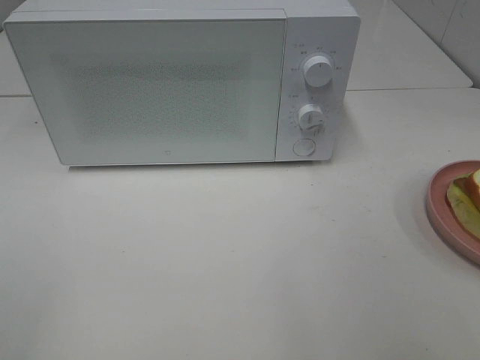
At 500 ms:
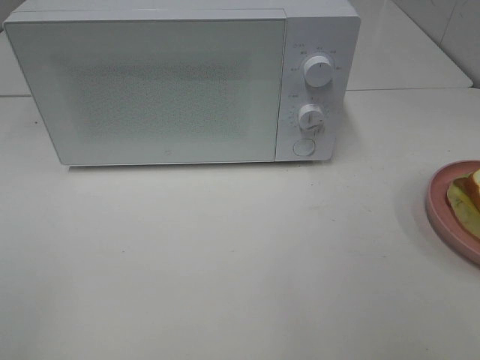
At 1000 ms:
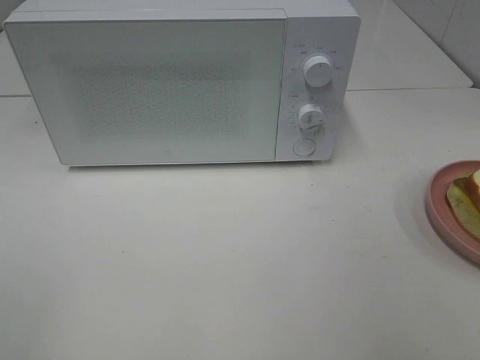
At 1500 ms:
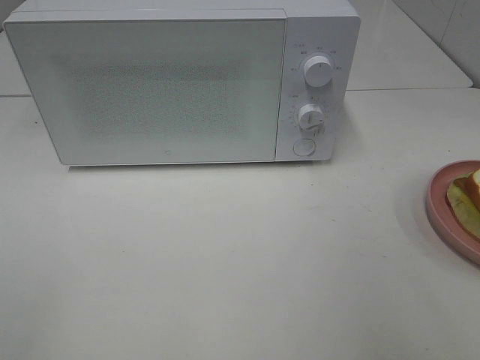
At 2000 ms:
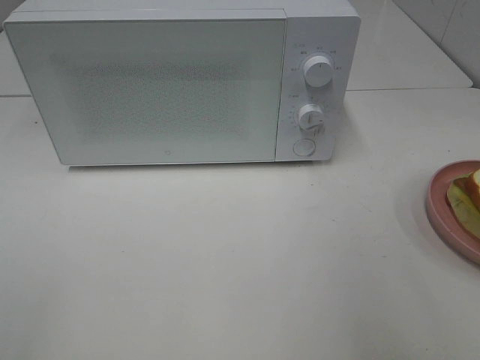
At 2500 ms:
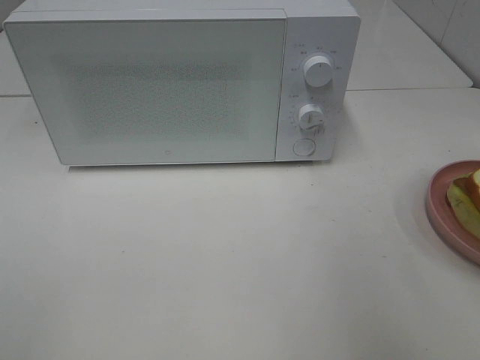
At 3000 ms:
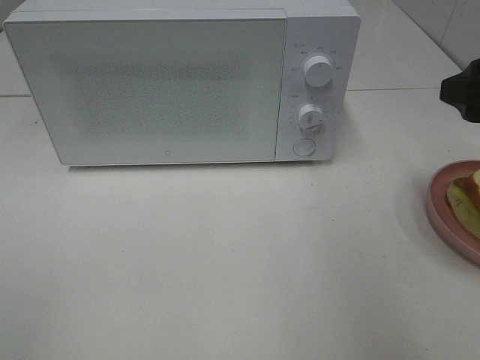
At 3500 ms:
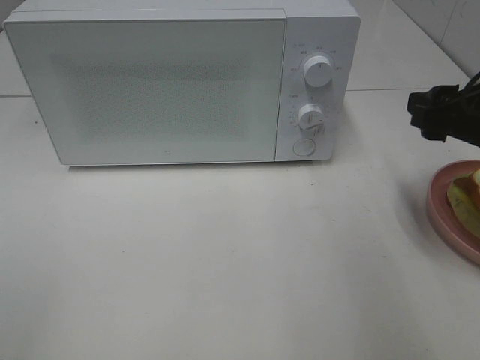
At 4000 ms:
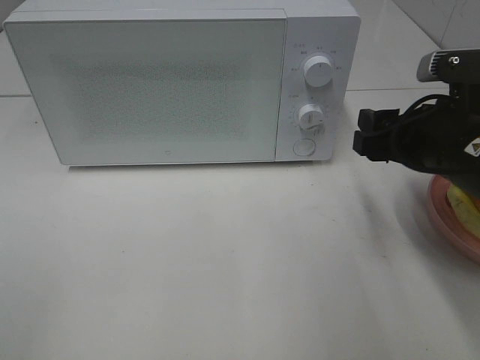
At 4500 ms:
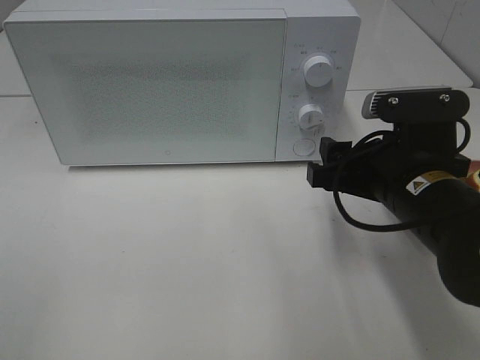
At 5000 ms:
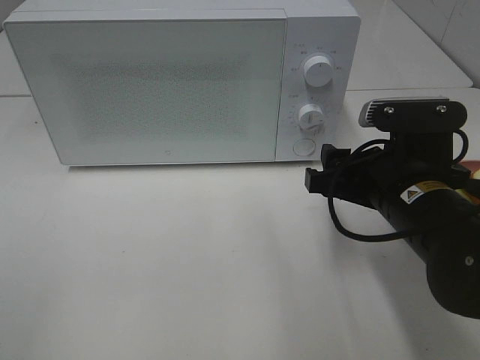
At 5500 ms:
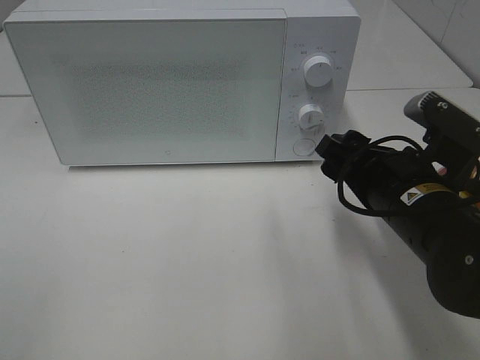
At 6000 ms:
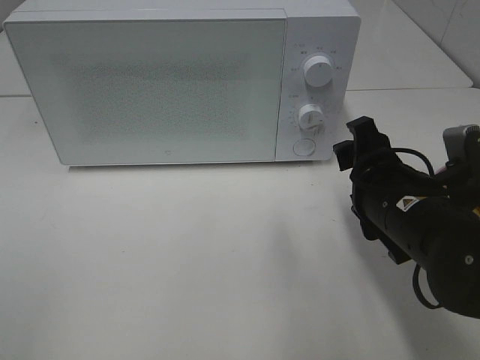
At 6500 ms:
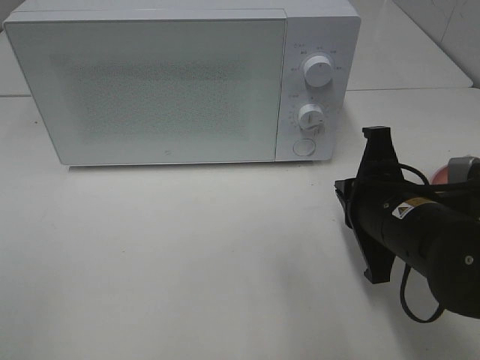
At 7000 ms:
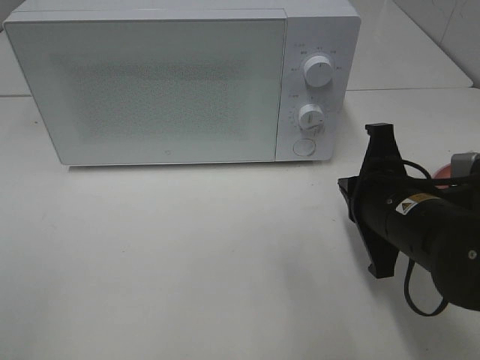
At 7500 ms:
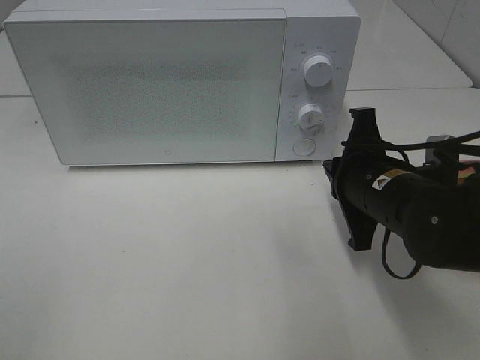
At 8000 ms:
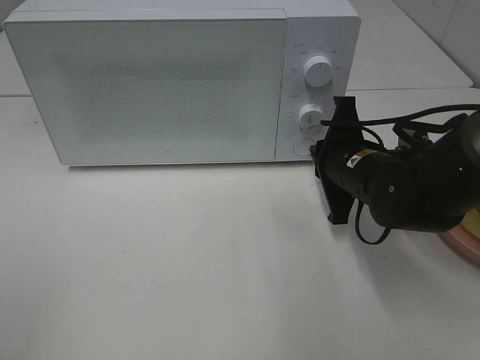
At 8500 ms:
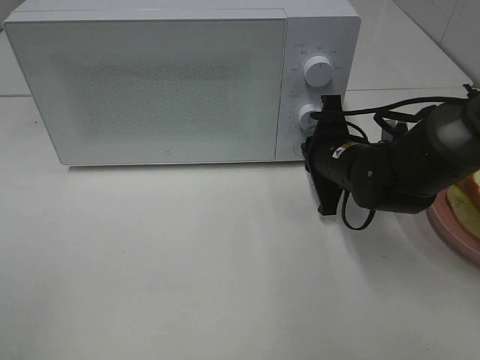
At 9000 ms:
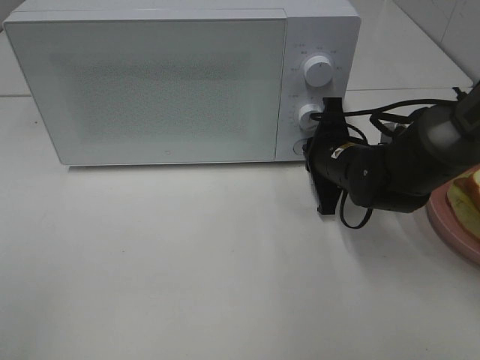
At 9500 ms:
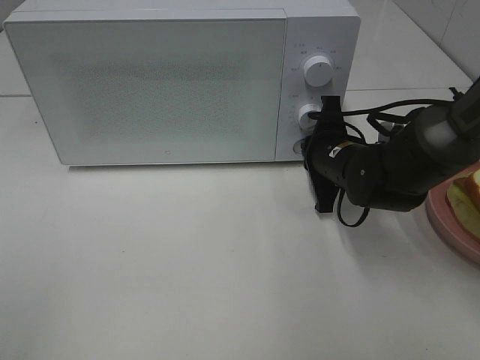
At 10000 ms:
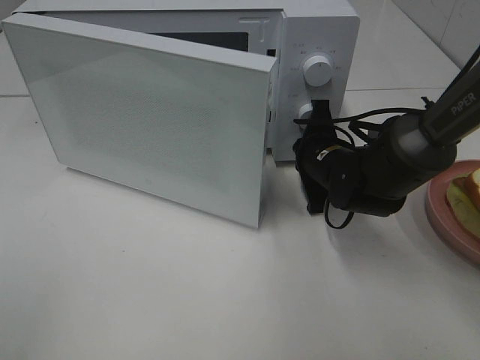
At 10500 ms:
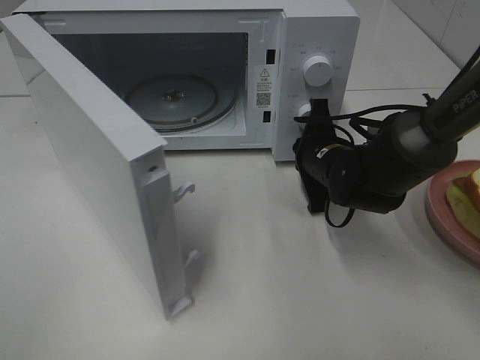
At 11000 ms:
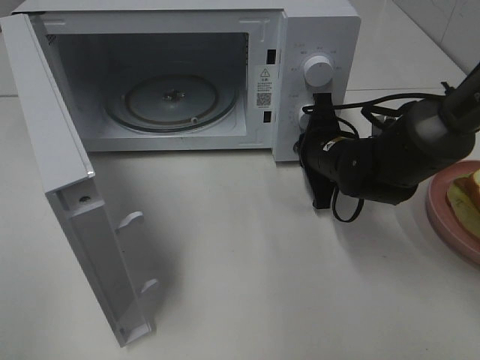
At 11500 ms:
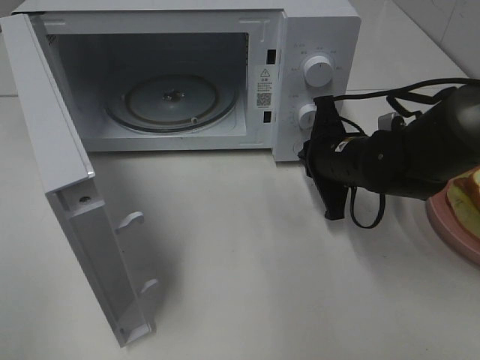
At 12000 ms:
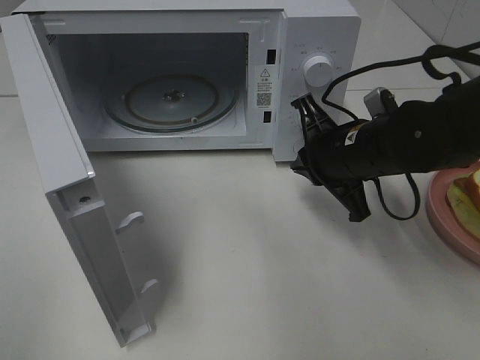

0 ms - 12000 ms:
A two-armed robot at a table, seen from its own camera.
Task of the whole recording: Heat Sandwich.
Step, 0 ms - 11500 ms: Right hand: press the switch.
2000 ms - 4000 ms: The right gripper heads downward, forward and to the left, covering some 20 cm.
4000 ms - 6000 ms: The right gripper moves some 5 cm.
6000 ms - 8000 ms: The right gripper heads forward, covering approximately 10 cm, and closes its fingers.
8000 ms - 10000 ms: The right gripper heads forward, covering roughly 5 cm.
10000 ms - 12000 ms: The right gripper moves upward and backward, some 10 cm.

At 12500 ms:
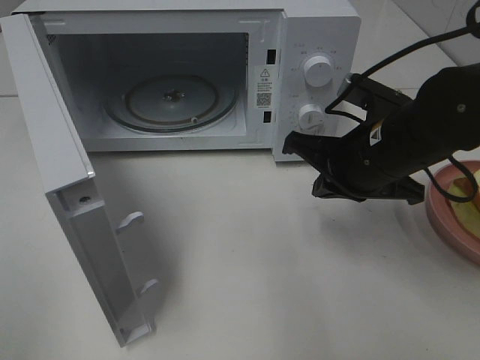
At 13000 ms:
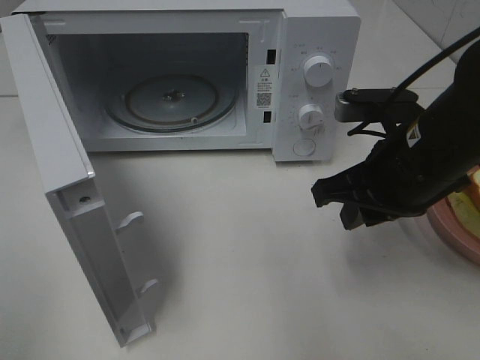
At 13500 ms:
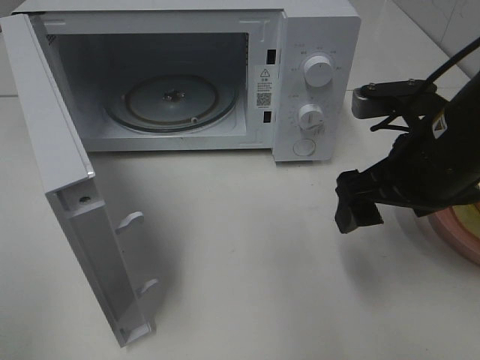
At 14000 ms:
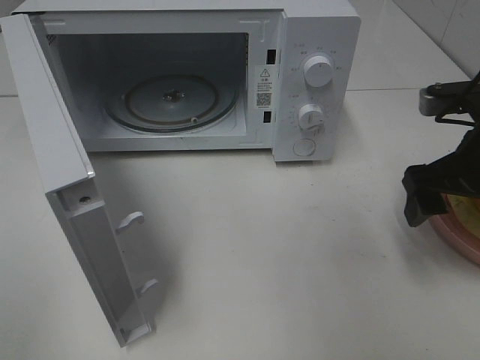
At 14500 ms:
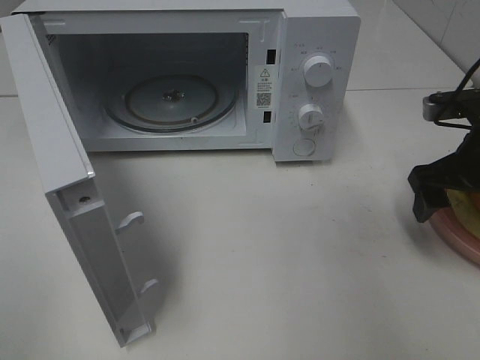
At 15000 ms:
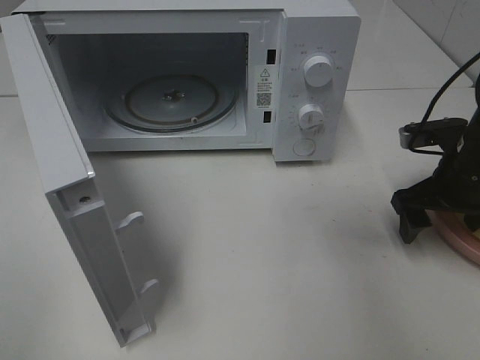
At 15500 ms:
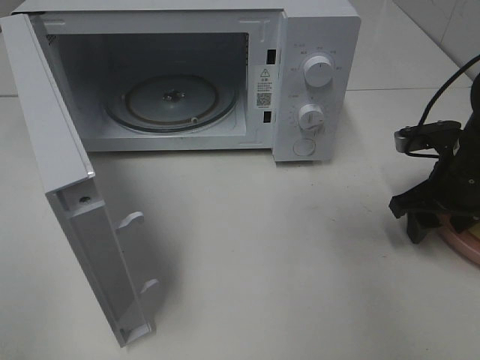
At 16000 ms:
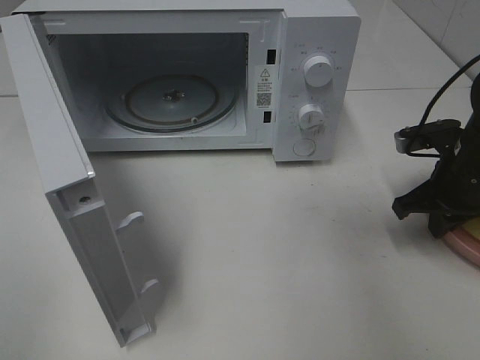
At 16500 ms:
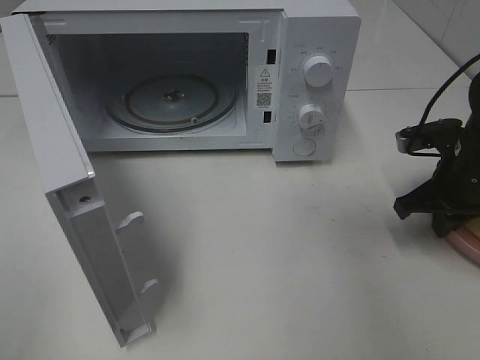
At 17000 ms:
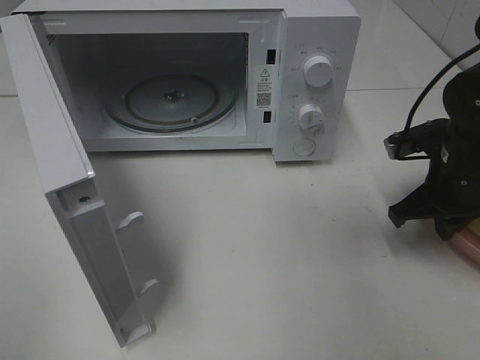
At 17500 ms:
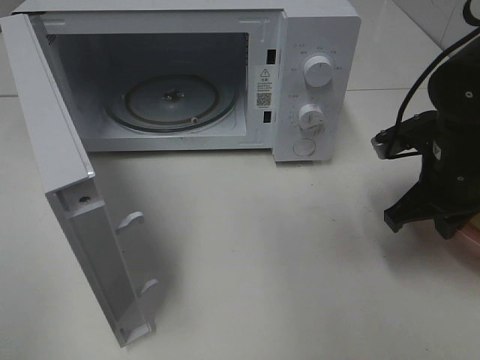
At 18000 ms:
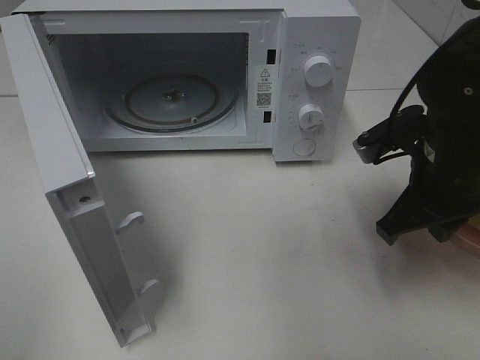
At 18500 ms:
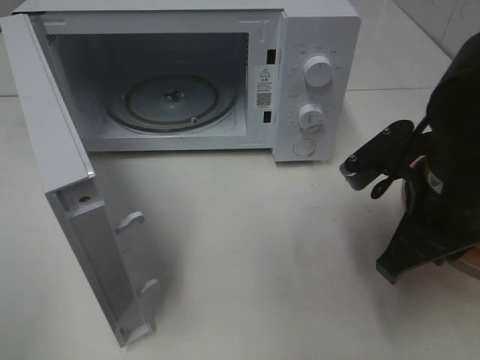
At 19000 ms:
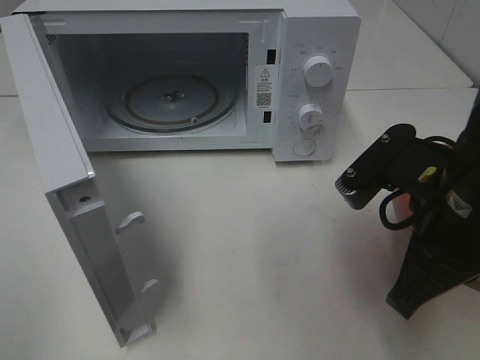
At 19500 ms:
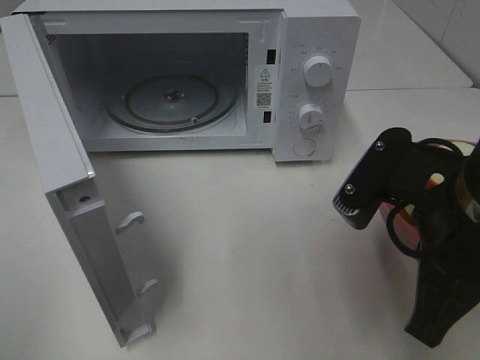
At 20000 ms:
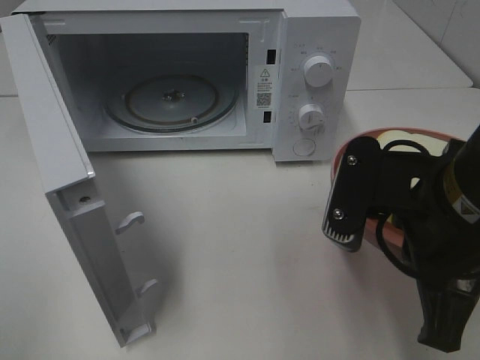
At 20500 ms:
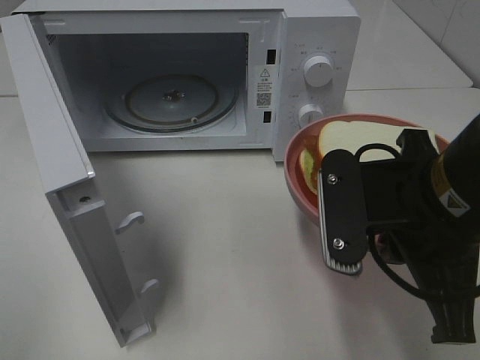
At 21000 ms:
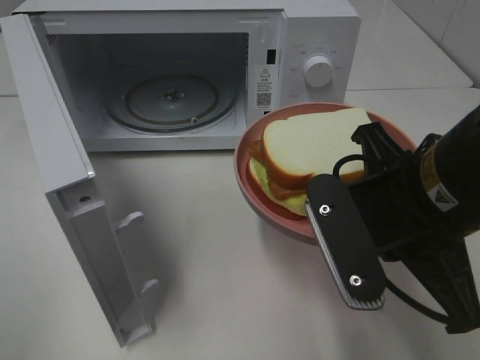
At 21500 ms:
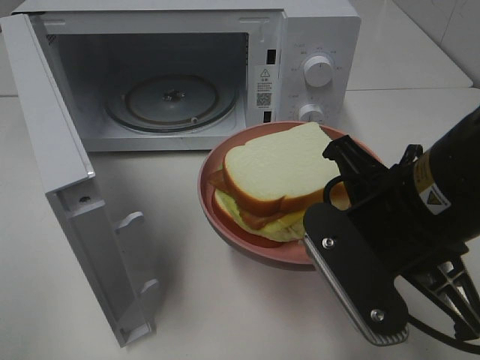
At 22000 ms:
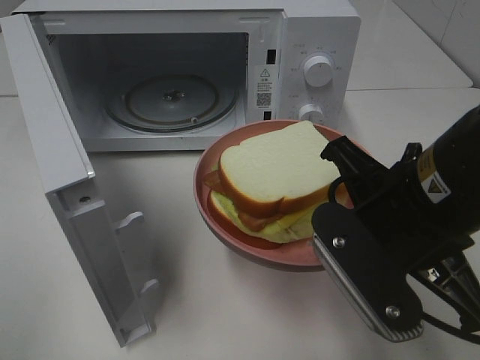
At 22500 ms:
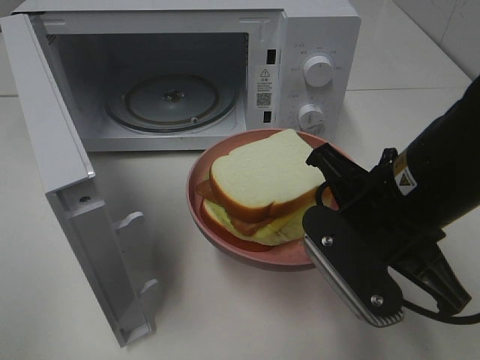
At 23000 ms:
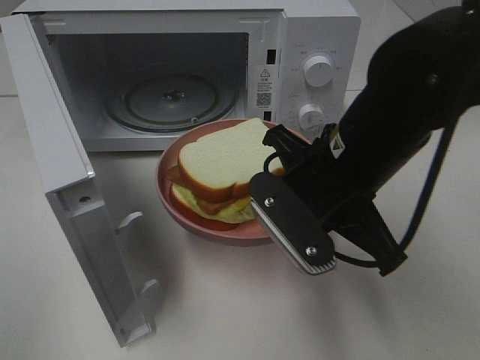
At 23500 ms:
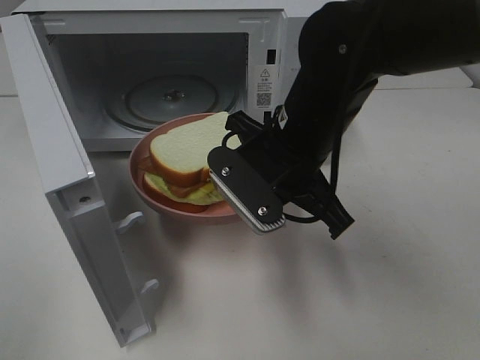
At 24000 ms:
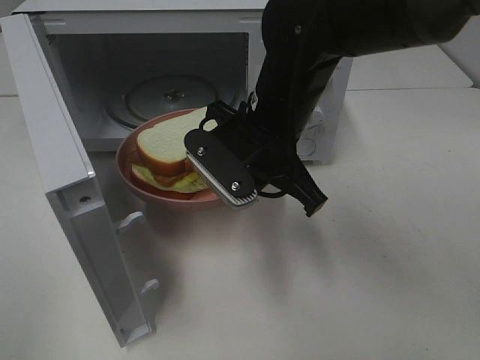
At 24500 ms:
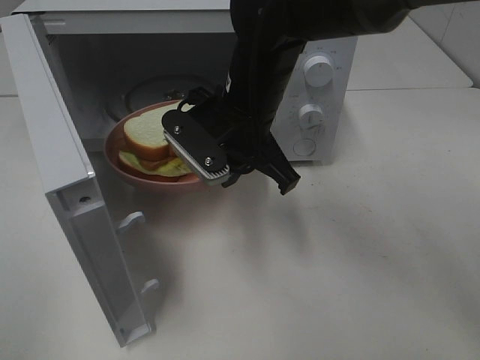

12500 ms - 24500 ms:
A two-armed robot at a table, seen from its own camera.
Task of the whole recording: Heat Sandwich.
Step, 12500 ms - 15500 ms: Right hand: grab the plate with the sandwich.
12500 ms - 14500 ms: The right gripper heads to the right, covering some 10 cm, and opens its fingers.
14500 ms - 16500 ms: The right gripper goes approximately 5 cm downward, and closes.
16500 ms - 18500 ms: The right gripper shifts some 15 cm to the left, backward and upward.
18500 ms - 20500 ms: The right gripper shifts by approximately 5 cm.
22500 ms - 24500 ms: The right gripper heads forward and to the left, covering some 20 cm.

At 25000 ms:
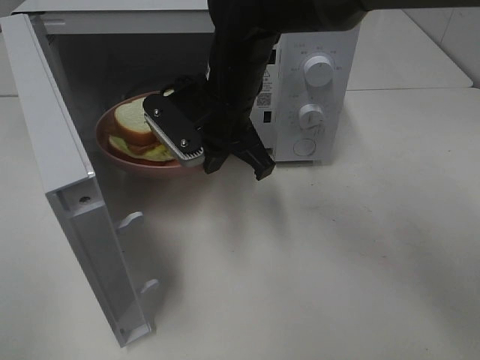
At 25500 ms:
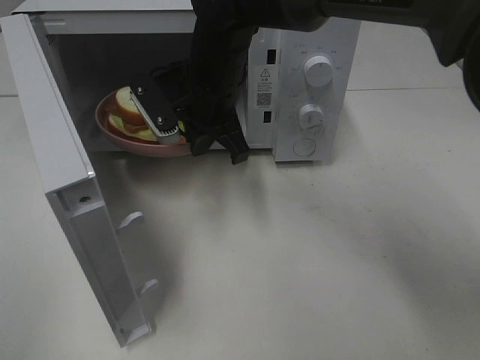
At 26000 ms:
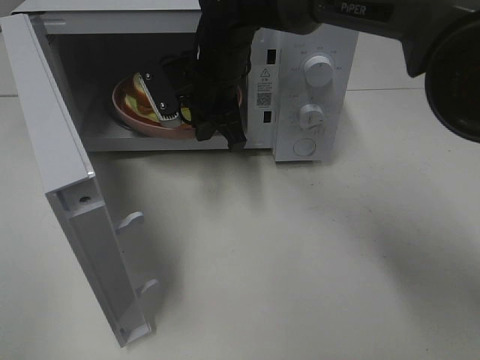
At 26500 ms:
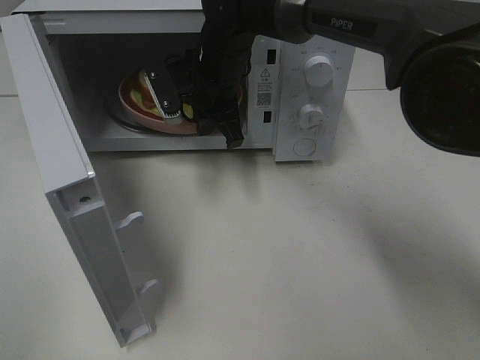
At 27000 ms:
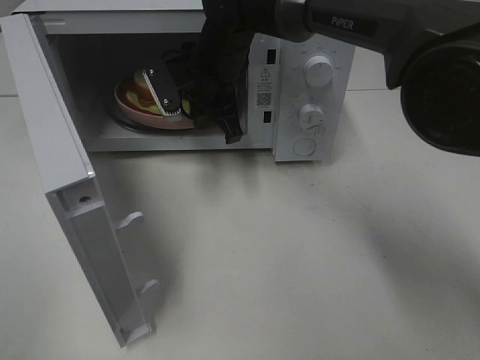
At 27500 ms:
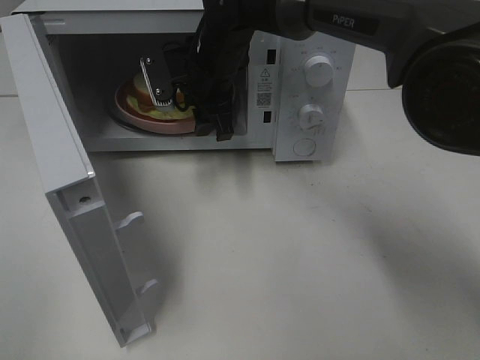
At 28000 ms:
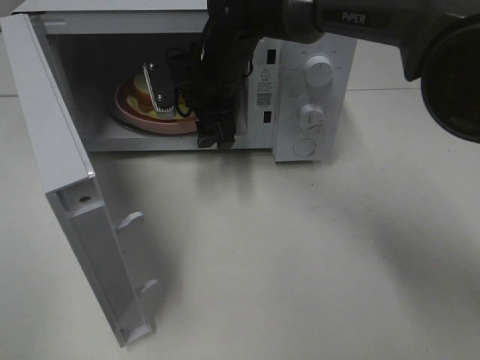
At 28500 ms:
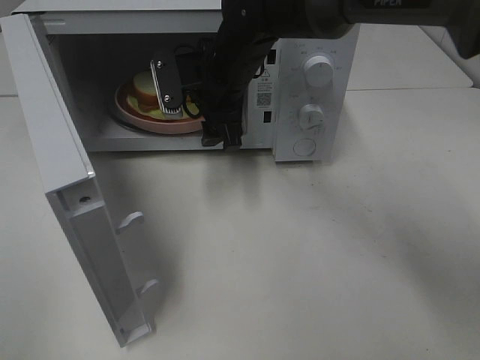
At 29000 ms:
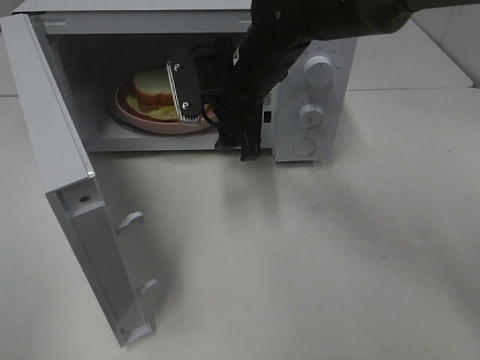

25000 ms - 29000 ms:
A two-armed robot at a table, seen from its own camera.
Task of the whole recording: Heat Sandwich.
Step, 25000 ms - 28000 ms: Right hand: place the plate in the microwave.
25000 ms - 27000 ms: The right gripper moves forward, approximately 10 cm.
27000 ms - 29000 ms: The right gripper goes about 5 cm backward, and opens its fingers.
